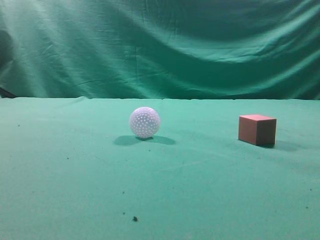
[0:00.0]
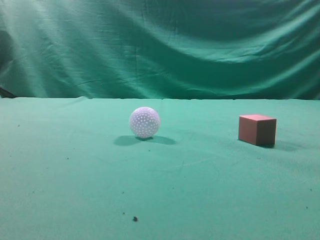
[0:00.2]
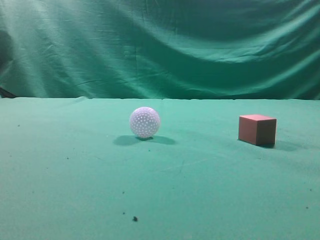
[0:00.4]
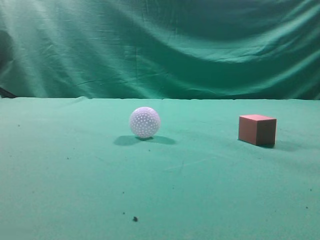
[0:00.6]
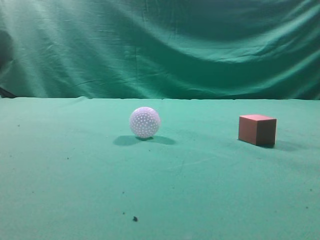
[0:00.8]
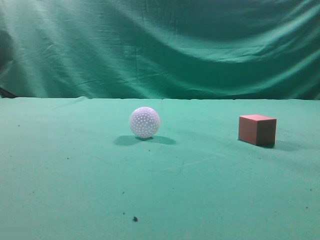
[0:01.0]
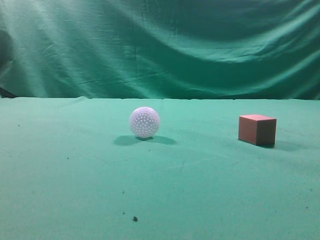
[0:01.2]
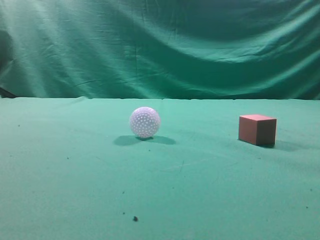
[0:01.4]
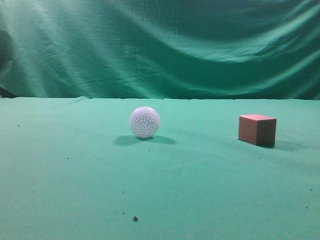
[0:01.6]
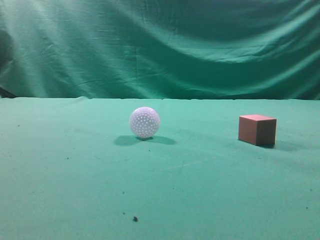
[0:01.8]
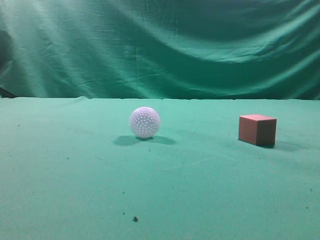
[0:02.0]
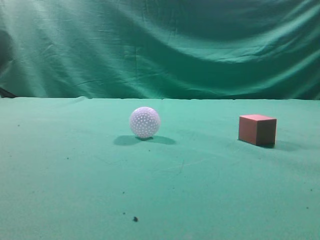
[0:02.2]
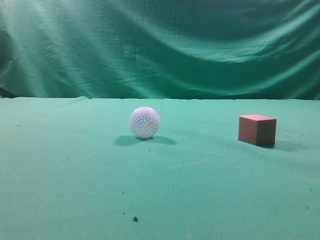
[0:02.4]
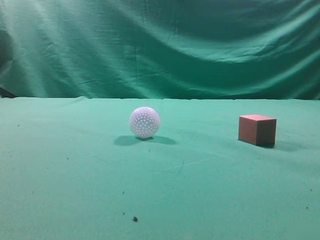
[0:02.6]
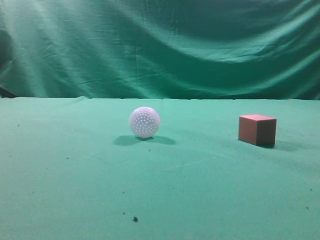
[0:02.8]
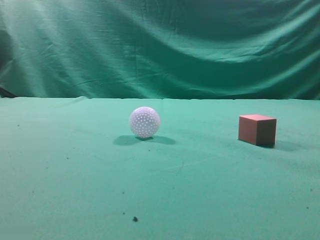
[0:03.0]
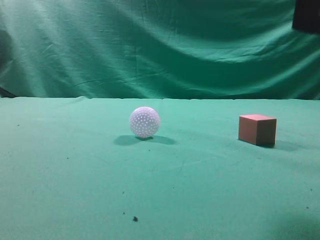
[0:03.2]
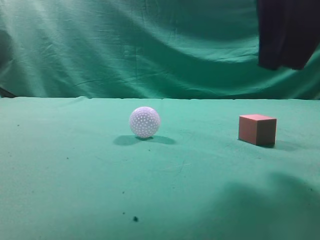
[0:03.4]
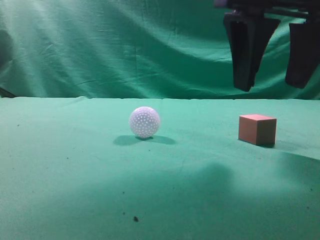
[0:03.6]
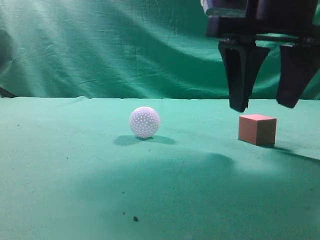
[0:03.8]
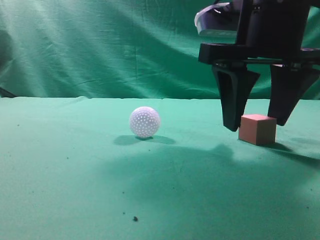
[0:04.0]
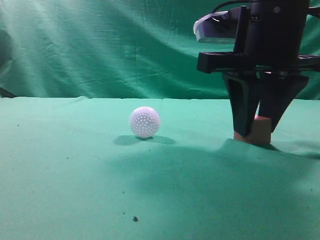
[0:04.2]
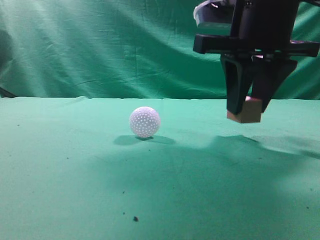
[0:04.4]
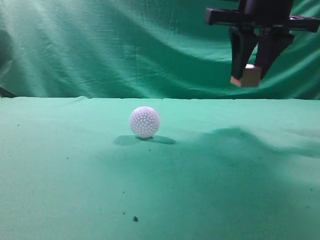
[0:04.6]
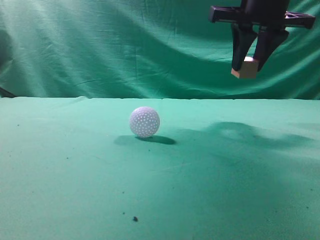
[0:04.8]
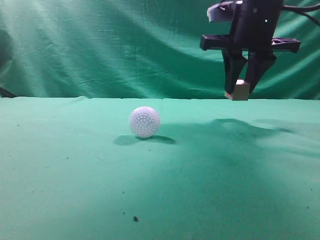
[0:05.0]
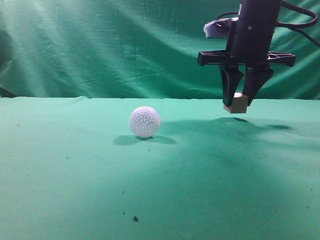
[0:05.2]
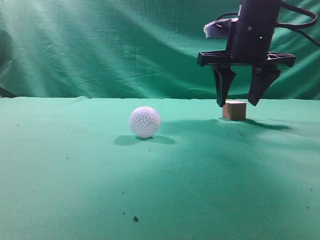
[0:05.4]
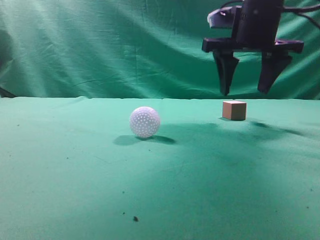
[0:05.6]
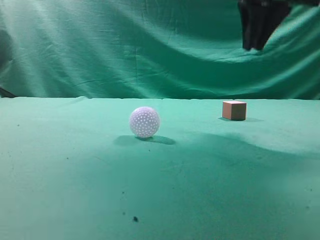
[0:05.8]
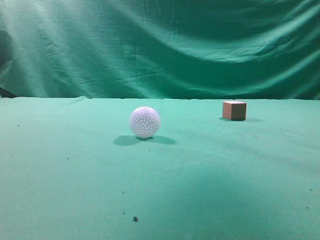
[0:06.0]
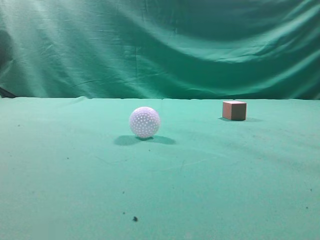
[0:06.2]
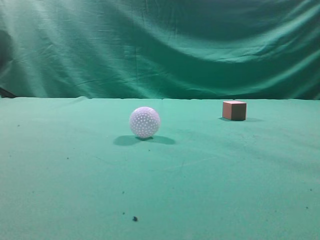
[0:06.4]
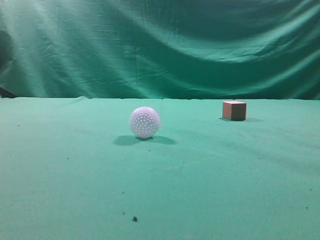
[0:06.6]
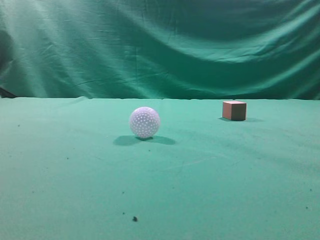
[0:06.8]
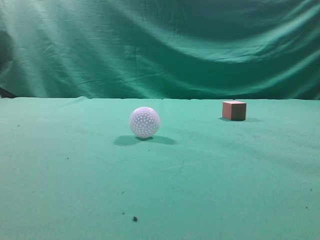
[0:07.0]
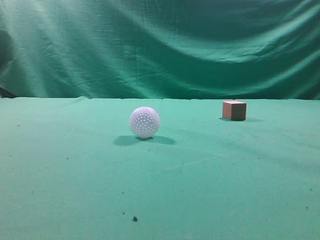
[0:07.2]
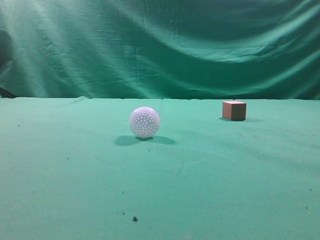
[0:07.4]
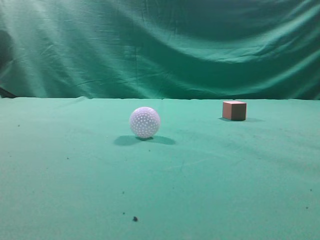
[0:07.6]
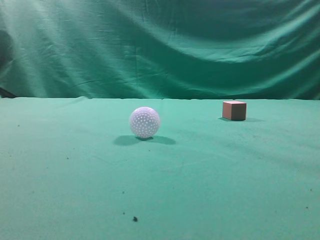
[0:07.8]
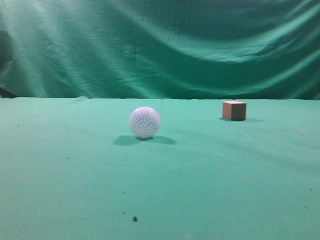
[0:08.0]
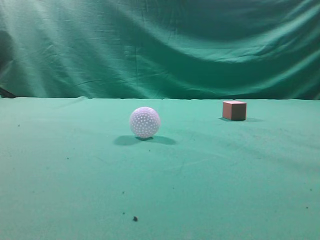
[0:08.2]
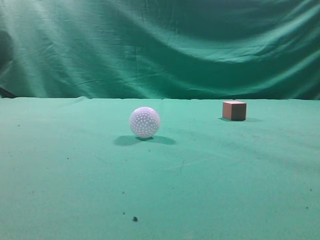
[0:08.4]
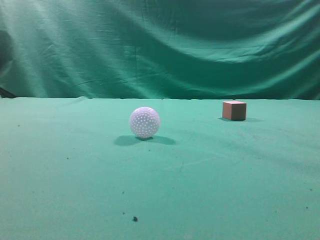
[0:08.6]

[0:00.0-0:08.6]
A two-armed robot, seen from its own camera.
Task of the whole recording: pick up the cube block and place it in another position on the table.
Step, 0:00.0 to 0:04.2: Pick up the small cube.
Step, 0:04.6 to 0:05.4: Place the small cube on the ahead of the table.
0:02.8 to 0:04.4: The right gripper travels forward, downward and to the left by some 25 cm, and opens up.
0:04.4 to 0:05.8: The right gripper is displaced upward by some 10 cm, and opens, then closes once more.
0:05.8 to 0:07.2: The right gripper shifts approximately 30 cm backward.
